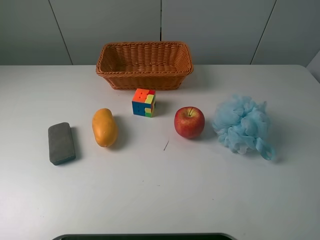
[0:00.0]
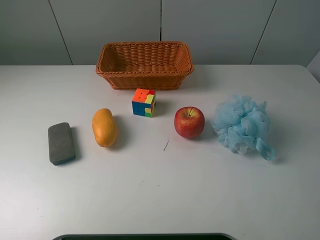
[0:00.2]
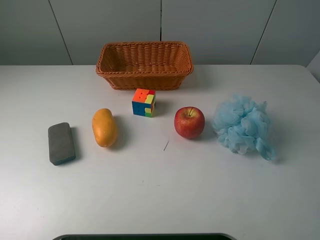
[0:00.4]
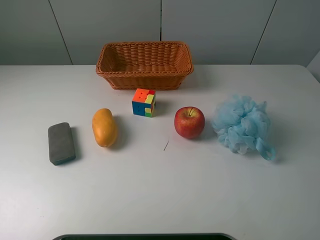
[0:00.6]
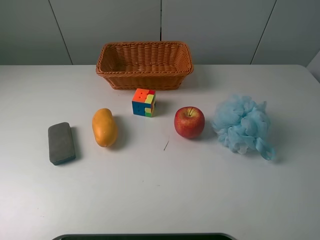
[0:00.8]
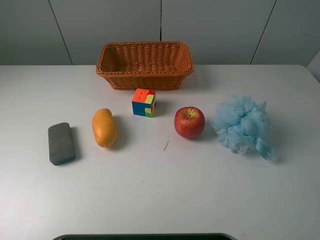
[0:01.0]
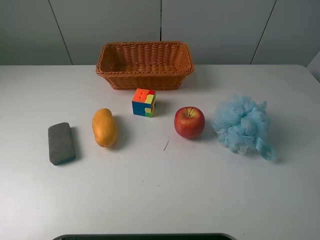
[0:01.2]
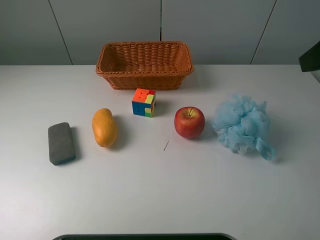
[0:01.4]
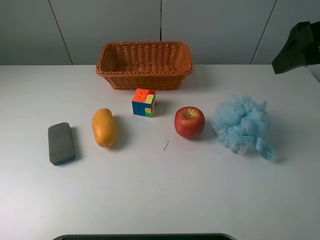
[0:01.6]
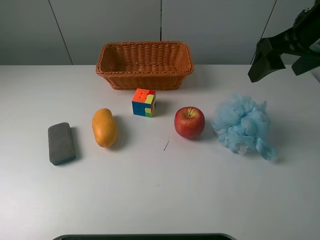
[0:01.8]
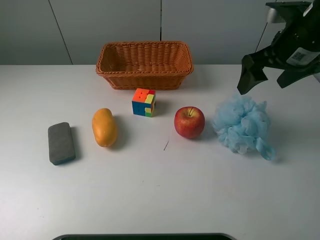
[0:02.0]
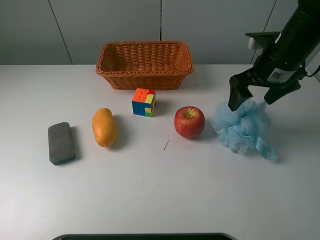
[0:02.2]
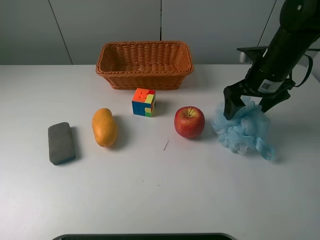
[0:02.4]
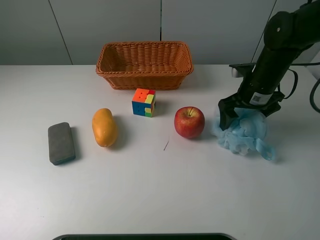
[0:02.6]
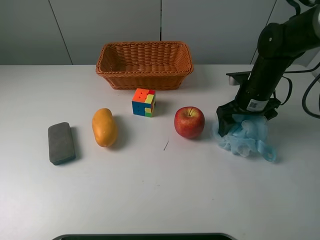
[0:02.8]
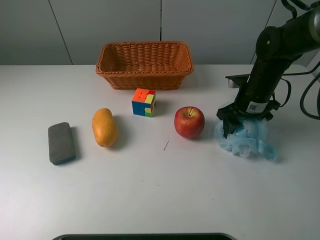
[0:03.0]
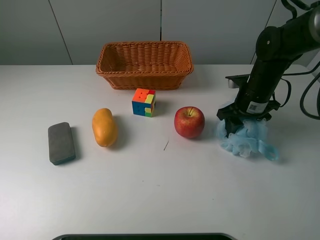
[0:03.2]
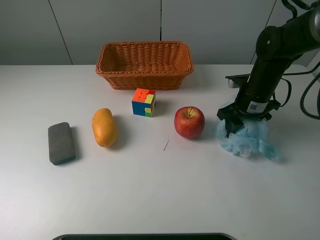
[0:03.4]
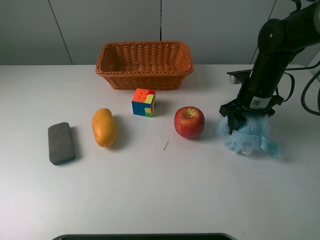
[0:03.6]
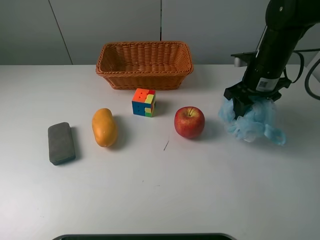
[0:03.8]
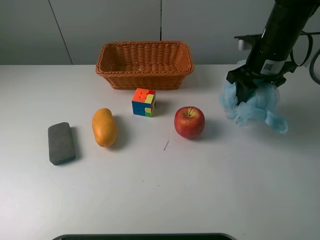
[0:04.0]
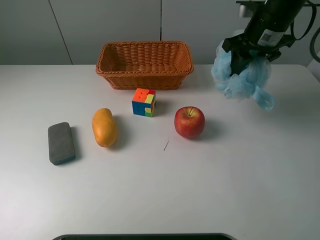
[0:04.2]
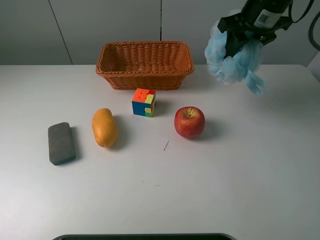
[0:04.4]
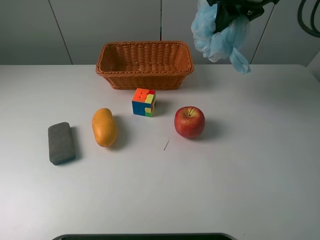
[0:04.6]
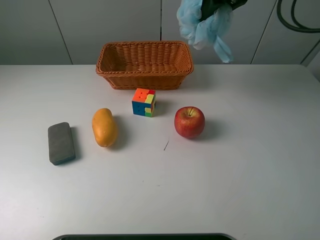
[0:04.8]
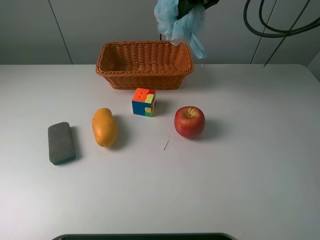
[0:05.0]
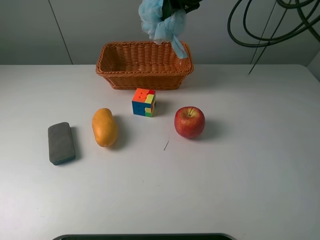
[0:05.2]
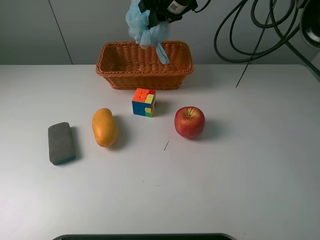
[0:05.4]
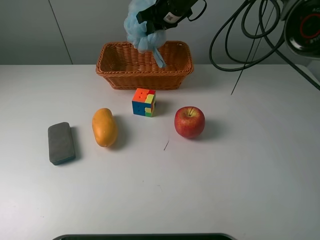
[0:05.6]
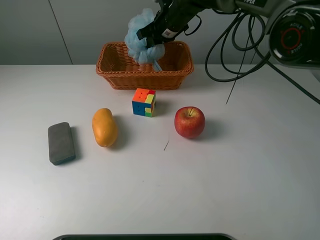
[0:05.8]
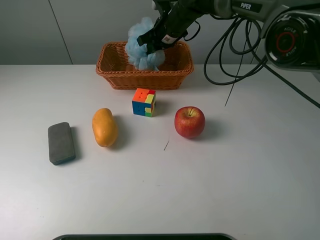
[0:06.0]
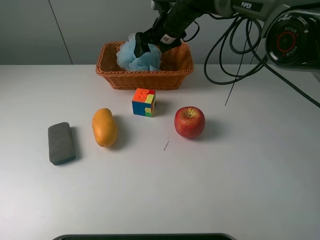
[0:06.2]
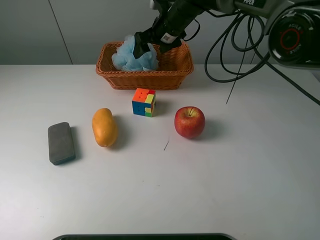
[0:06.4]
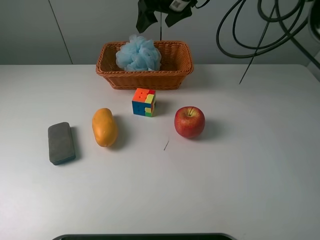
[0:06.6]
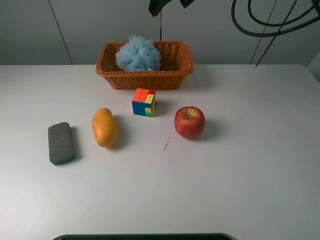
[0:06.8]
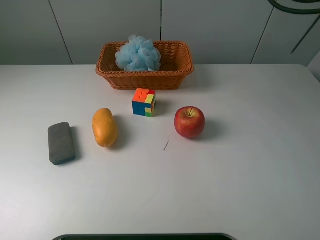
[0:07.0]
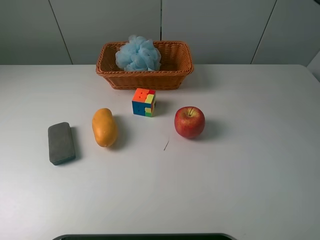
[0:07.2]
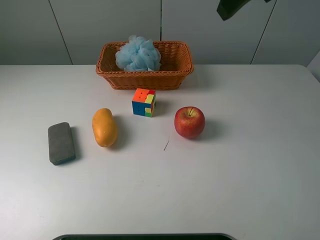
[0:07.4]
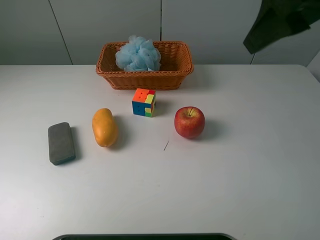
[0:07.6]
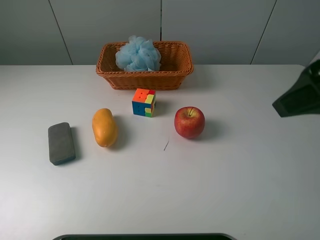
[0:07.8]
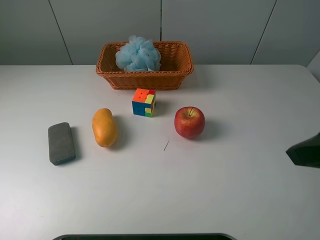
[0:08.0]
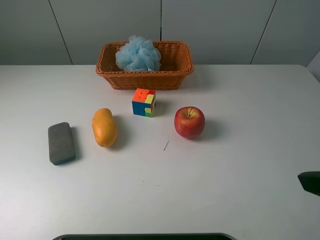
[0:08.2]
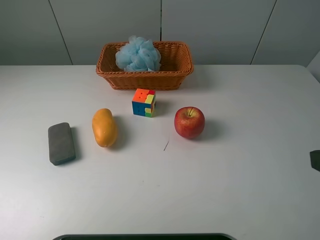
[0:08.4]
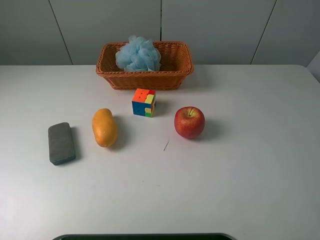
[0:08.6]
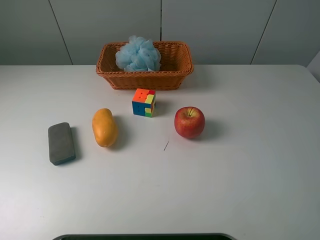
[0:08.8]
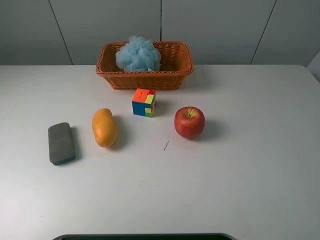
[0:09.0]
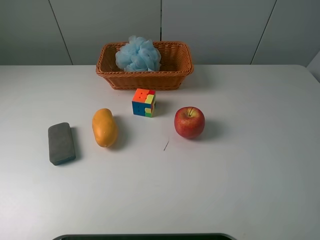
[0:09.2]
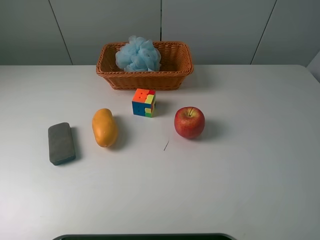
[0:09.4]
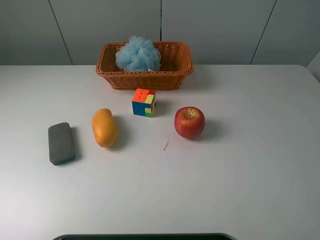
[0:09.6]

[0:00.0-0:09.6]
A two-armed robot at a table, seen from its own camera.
Task of the whole recording: use a picker to grab the item closest to the apple and place it in the basket.
Step, 0:00.0 to 0:03.4: Grasp the shower sphere with the right gripper.
Step, 0:03.6 to 0:06.4: Place the shower sphere into the basket with the right gripper.
0:00.0 to 0:01.6: The right gripper heads forward, covering approximately 20 cm.
0:01.6 to 0:03.2: The right gripper goes approximately 25 cm downward and forward, and closes its fingers.
0:03.2 to 0:04.8: The right gripper is displaced upward and forward by roughly 25 cm.
0:04.8 to 0:06.4: The right gripper goes roughly 20 cm downward, to the left and forward, and opens up.
0:06.4 to 0:08.0: The right gripper goes some 40 cm backward and to the right.
0:08.0 to 0:09.6: The right gripper travels backward by about 10 cm.
